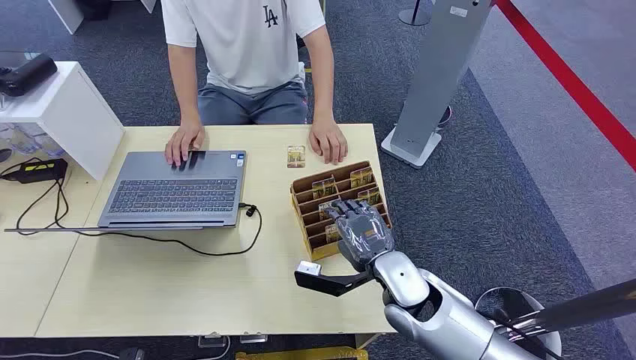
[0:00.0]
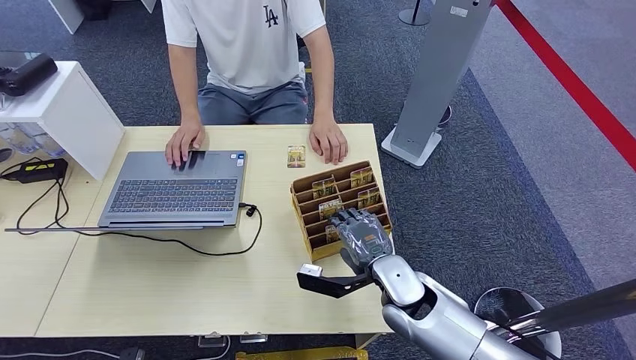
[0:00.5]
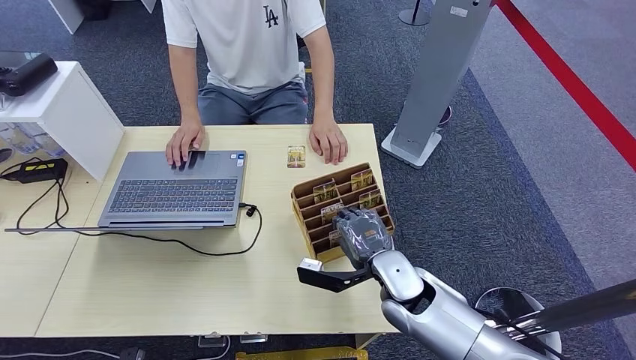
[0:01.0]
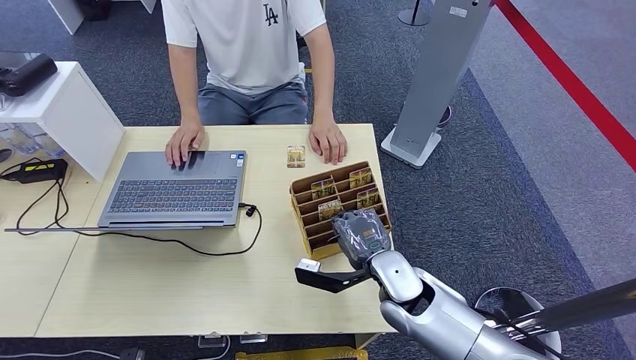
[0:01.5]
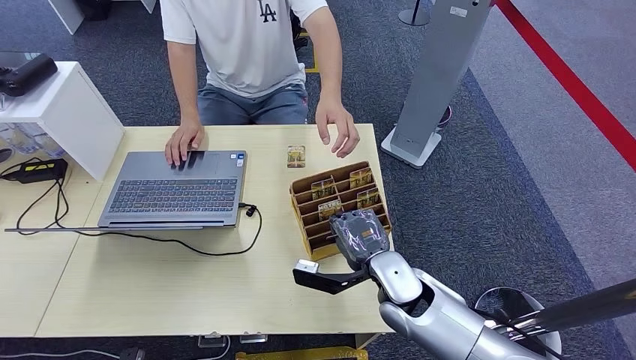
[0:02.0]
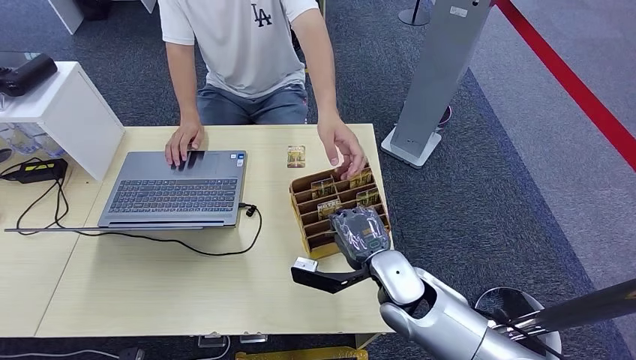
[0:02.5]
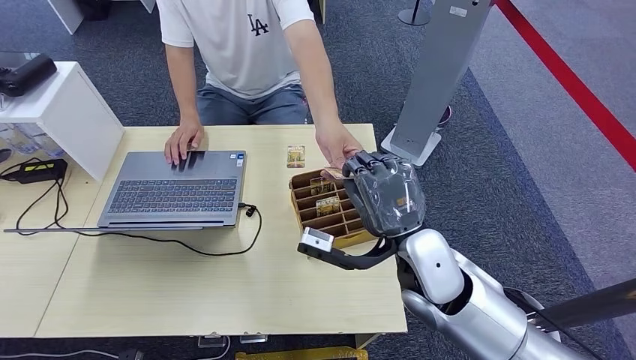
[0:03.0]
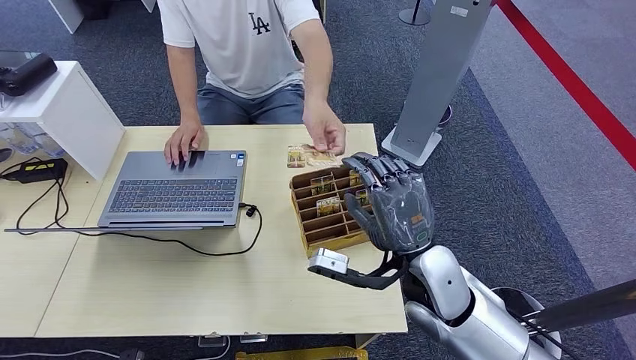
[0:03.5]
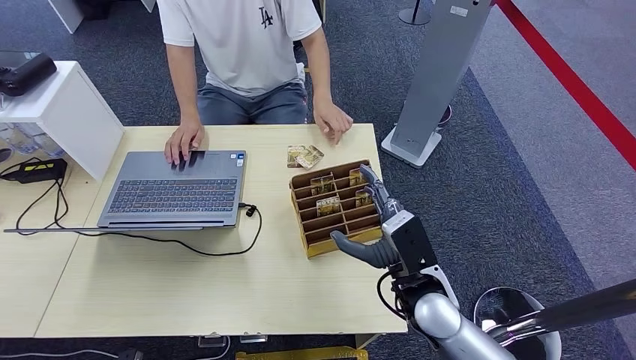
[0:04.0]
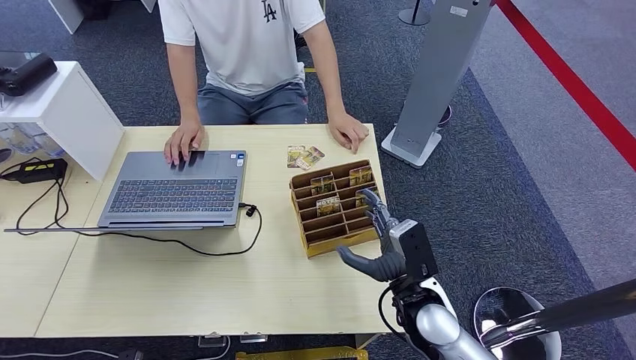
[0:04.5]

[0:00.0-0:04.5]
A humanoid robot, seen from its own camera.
Step, 0:00.0 to 0:02.5: Pick up the room card from the card holder.
Step, 0:03.0 to 0:04.5: Hand the room card to the target.
0:02.0 to 0:04.5: The right hand reaches approximately 10 cm upward, then returns.

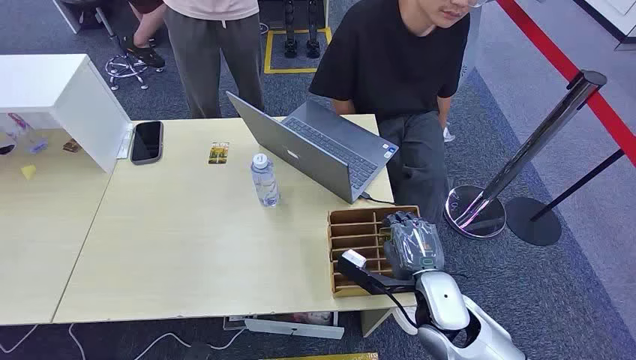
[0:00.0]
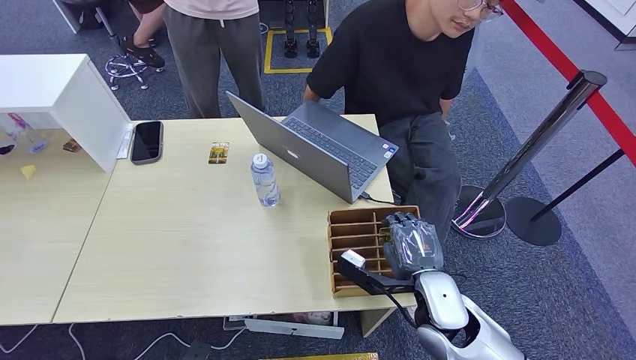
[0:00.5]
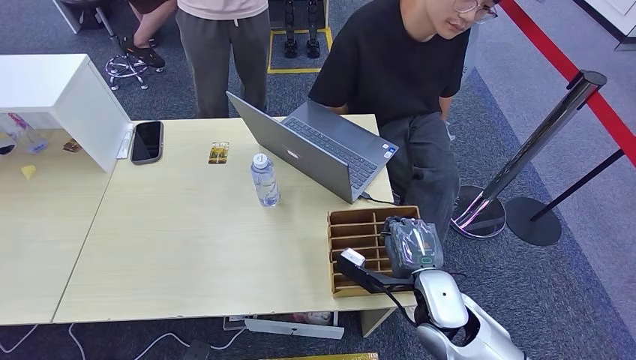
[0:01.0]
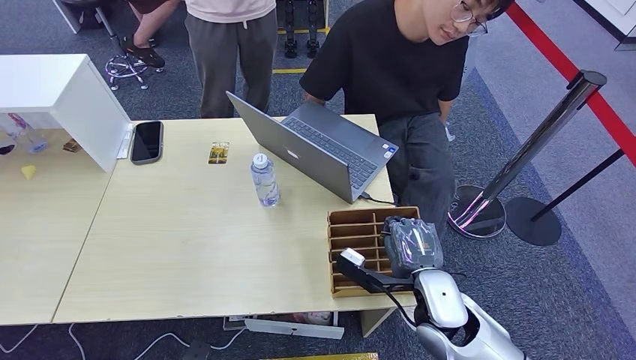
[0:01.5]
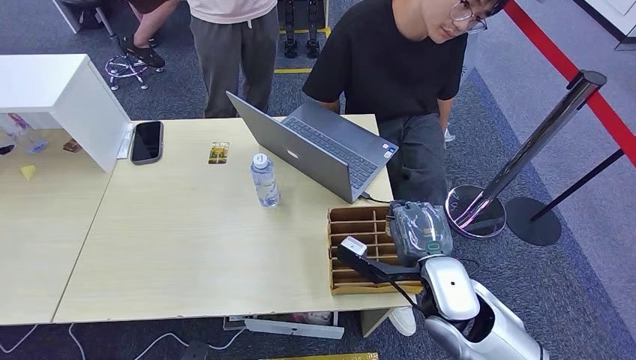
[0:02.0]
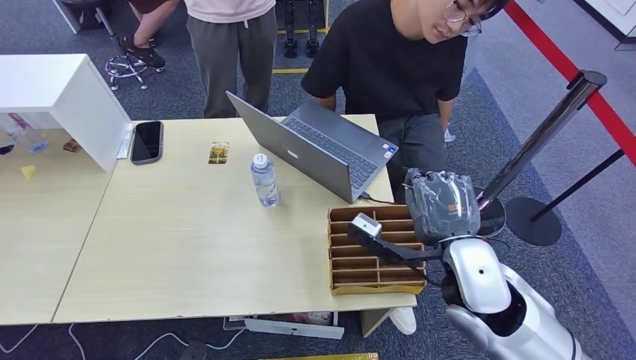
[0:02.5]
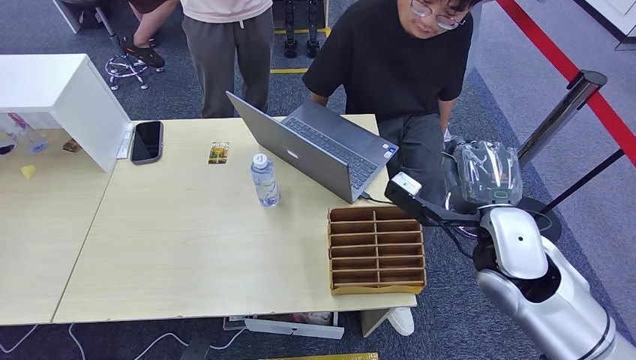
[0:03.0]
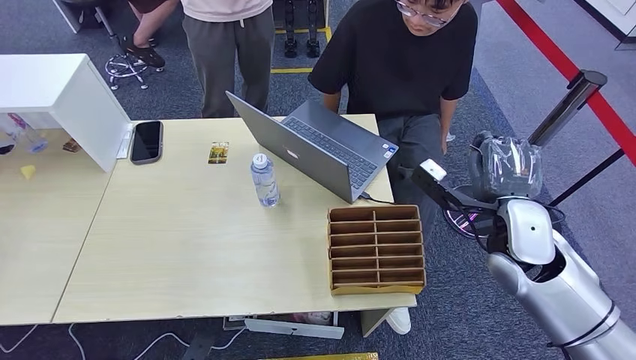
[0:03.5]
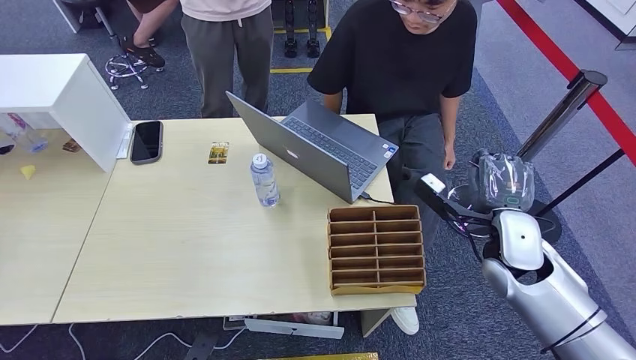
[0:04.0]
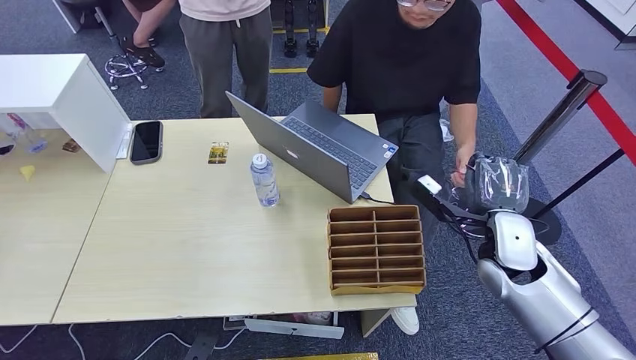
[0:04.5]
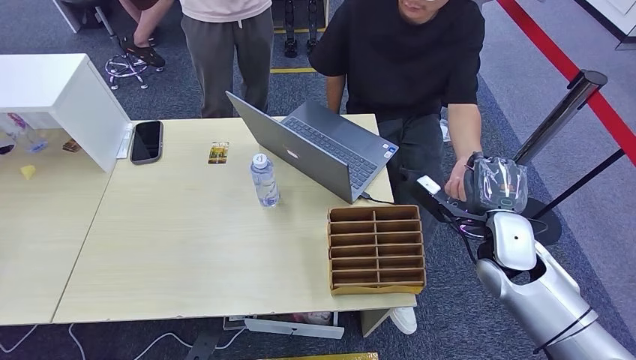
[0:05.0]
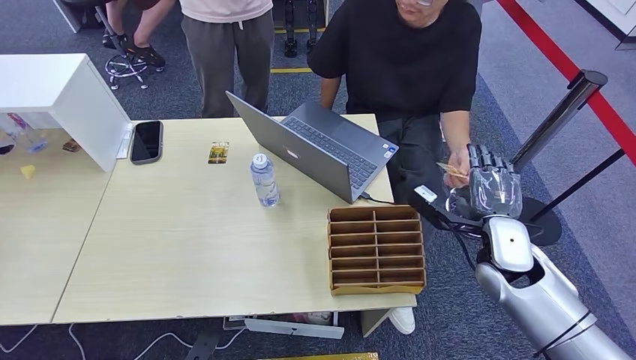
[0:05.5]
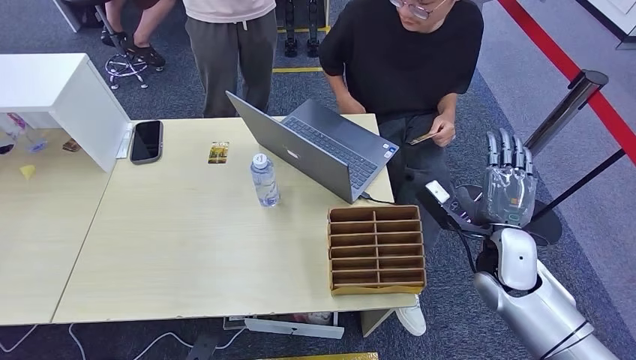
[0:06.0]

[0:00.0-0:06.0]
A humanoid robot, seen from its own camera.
Step, 0:00.0 to 0:02.0: Pick up the room card from the card holder.
Step, 0:02.5 to 0:06.0: Hand the room card to the target.
0:02.0 to 0:04.0: The right hand heads to the right and forward, covering about 15 cm.
0:04.0 to 0:06.0: There are only small adjustments of the hands.
